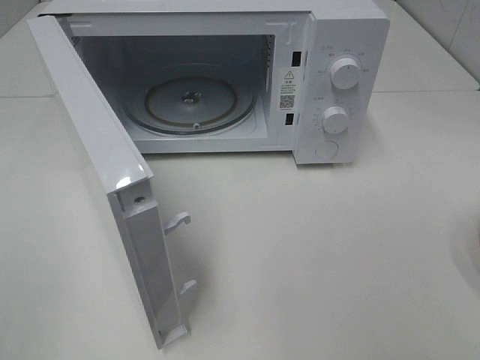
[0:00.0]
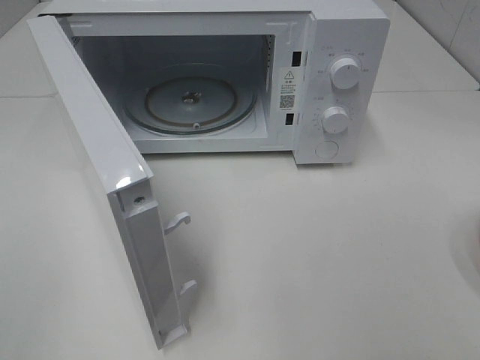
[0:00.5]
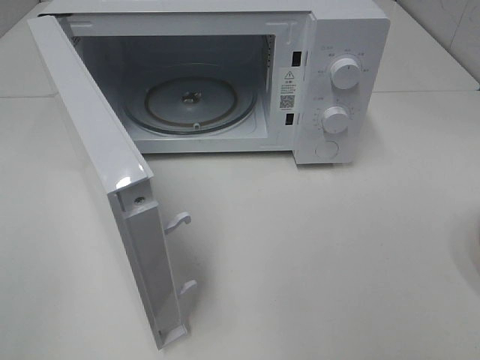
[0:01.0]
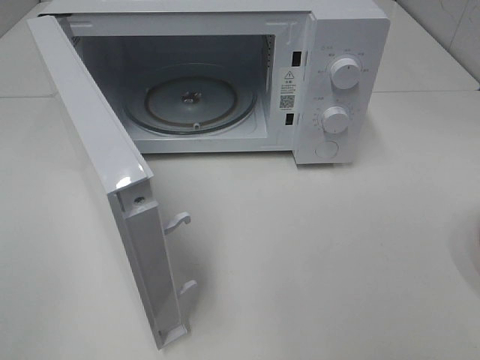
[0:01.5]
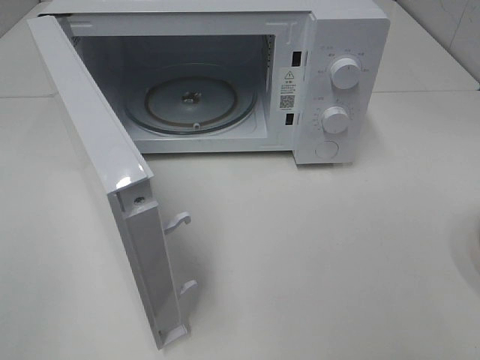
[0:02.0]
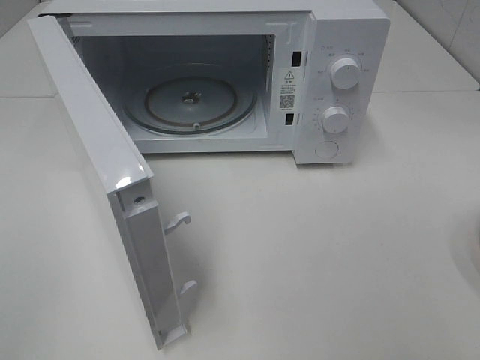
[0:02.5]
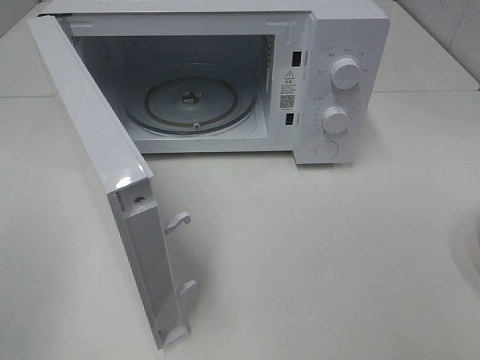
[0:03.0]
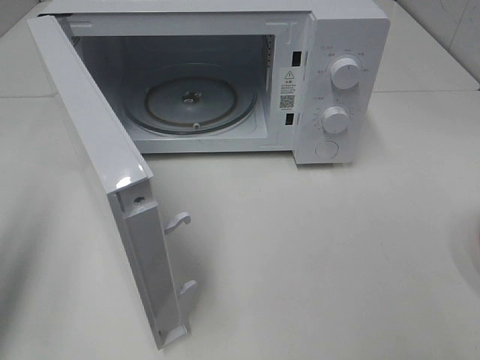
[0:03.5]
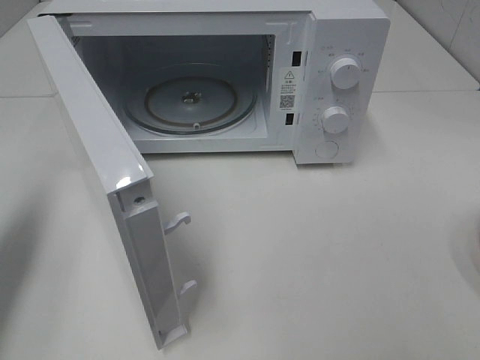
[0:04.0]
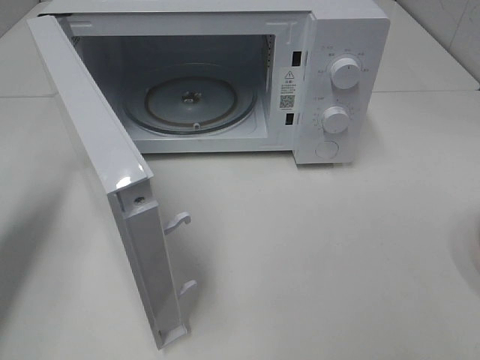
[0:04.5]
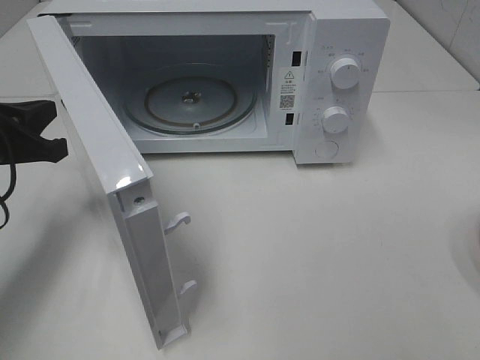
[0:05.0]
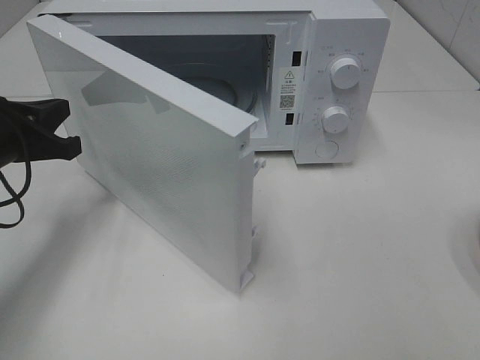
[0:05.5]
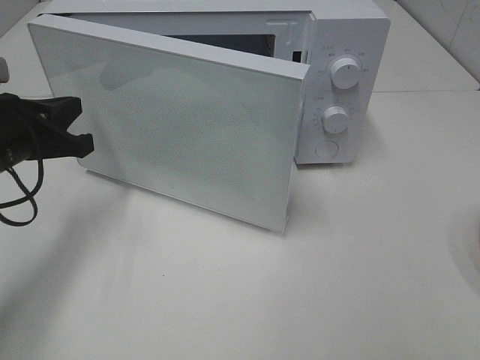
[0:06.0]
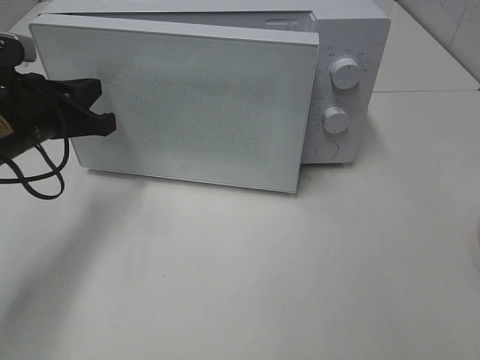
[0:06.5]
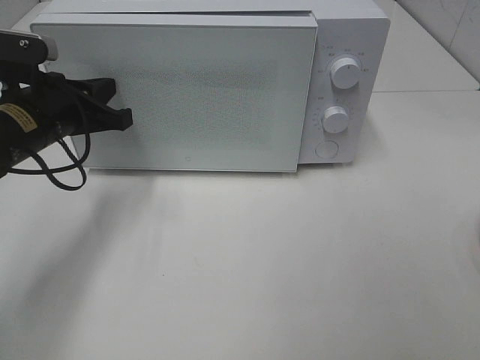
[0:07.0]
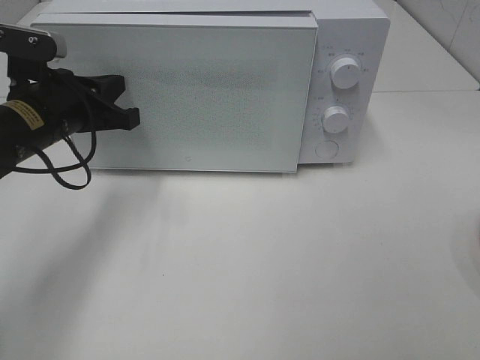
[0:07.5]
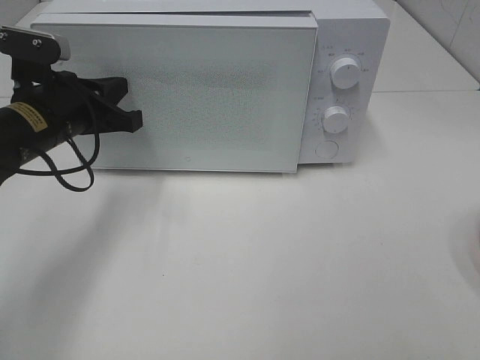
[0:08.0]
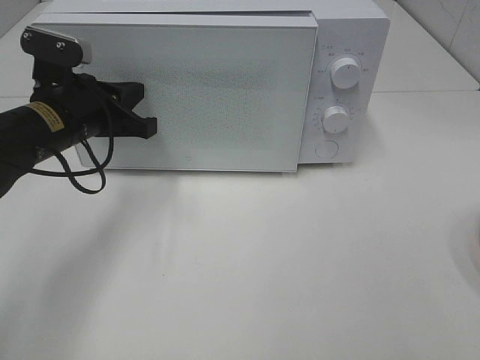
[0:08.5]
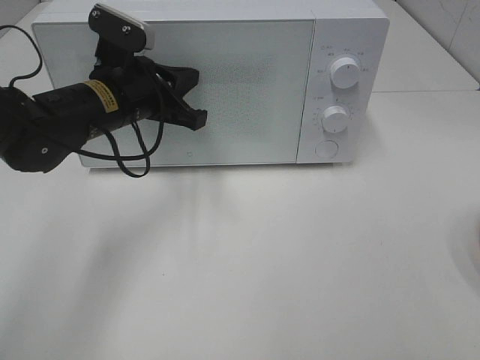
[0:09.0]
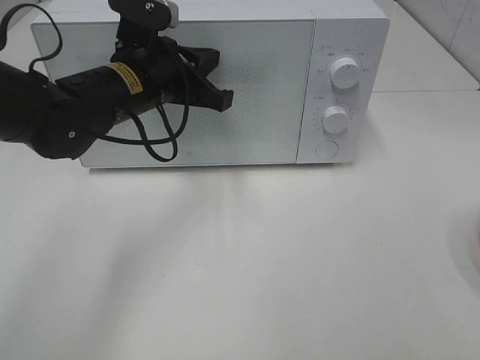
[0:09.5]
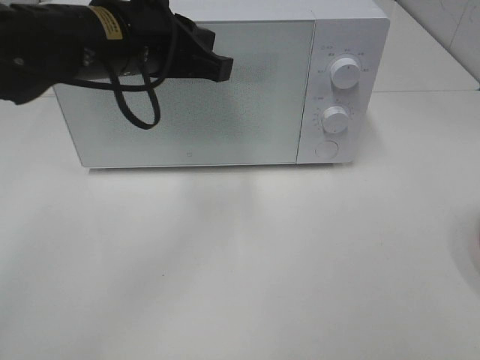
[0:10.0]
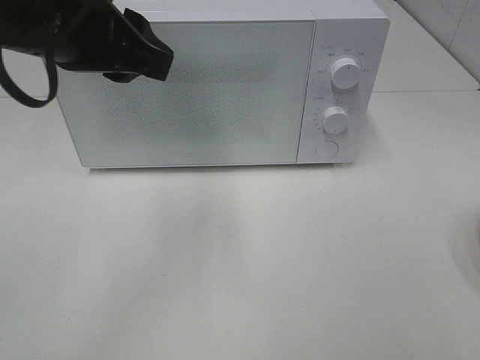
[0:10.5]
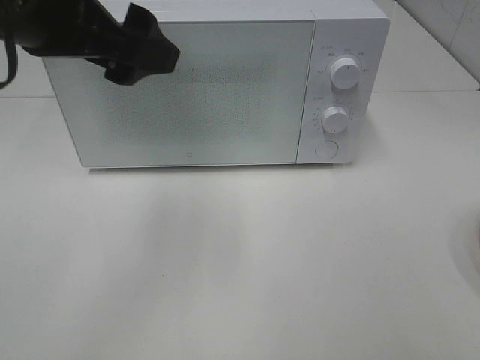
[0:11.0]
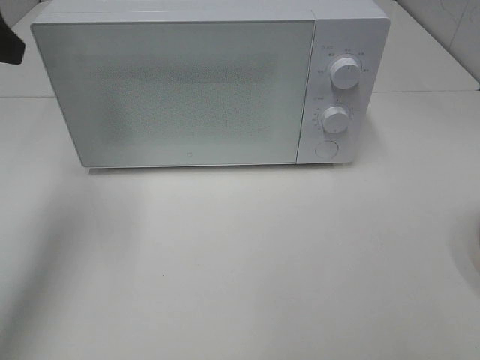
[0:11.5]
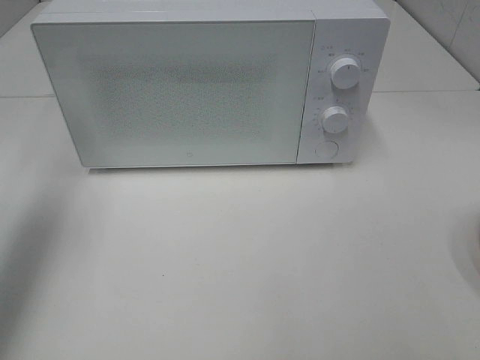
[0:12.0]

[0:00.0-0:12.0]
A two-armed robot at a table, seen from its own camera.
Task of the whole recording: Heat the burger.
Step, 0:00.0 to 0:09.0: Left hand: close the microwave door.
0:02.0 to 0:04.0: The left gripper goes some 20 cm forward, and closes.
0:04.0 to 0:06.0: The left gripper heads downward, to the right and forward, covering roughly 15 cm.
0:06.0 to 0:08.0: The left gripper ends up approximately 5 cm from where it was.
0:08.0 to 0:10.0: The left gripper goes some 15 cm to the right and upward.
0:10.0 to 0:12.0: The left gripper heads to the left, covering about 20 cm, and opens.

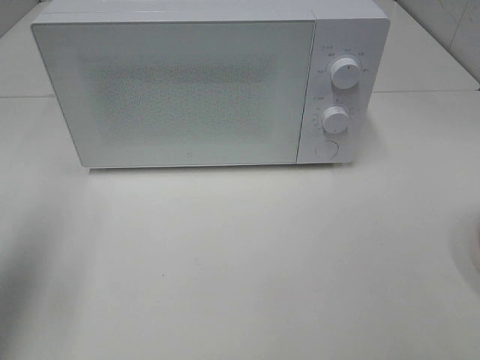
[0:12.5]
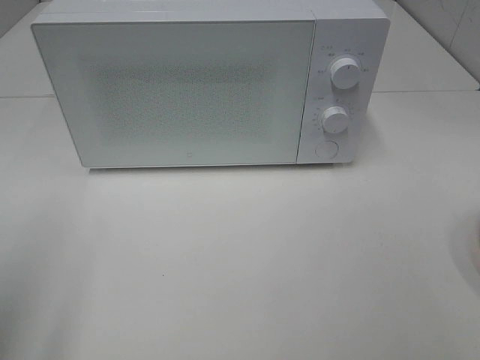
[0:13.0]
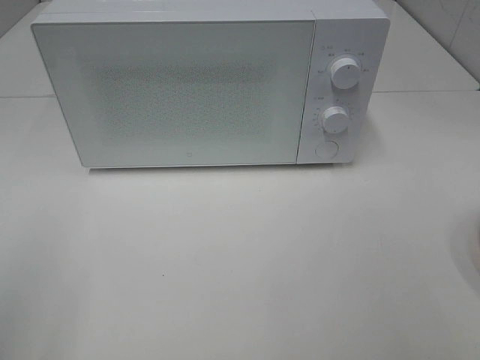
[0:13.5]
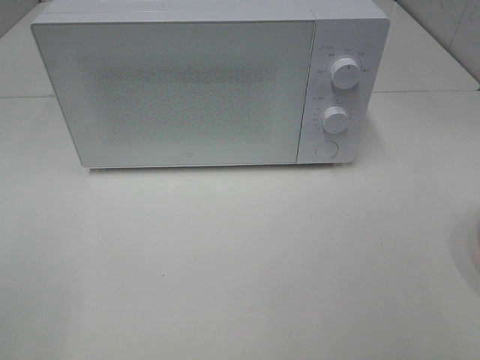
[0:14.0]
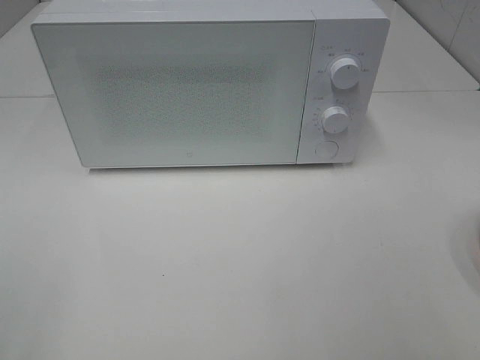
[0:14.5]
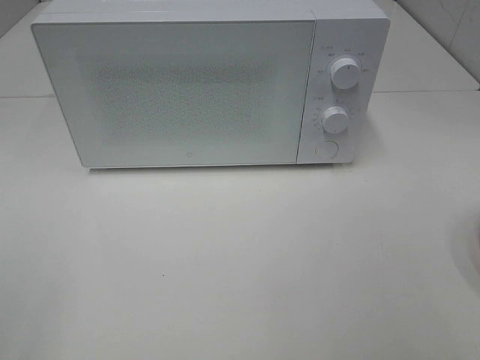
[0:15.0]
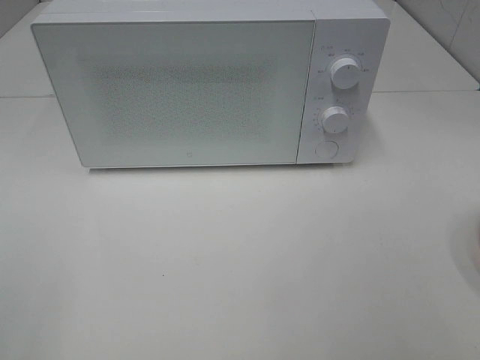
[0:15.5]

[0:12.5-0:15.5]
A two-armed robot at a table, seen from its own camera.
Task of the whole recording: Heat the burger.
0:12.5 to 0:14.0: The left gripper heads backward, covering roughly 20 cm.

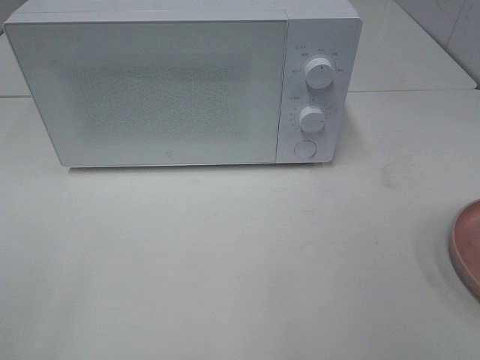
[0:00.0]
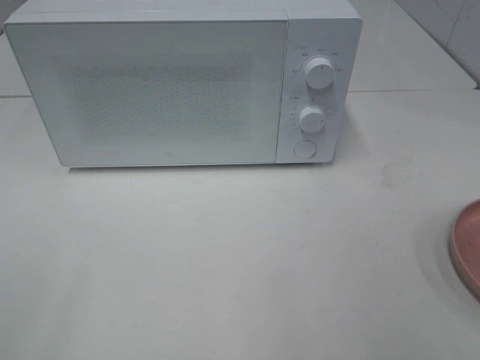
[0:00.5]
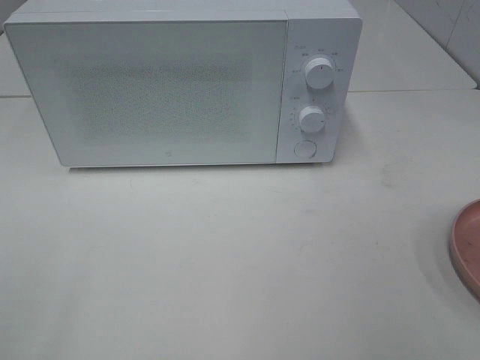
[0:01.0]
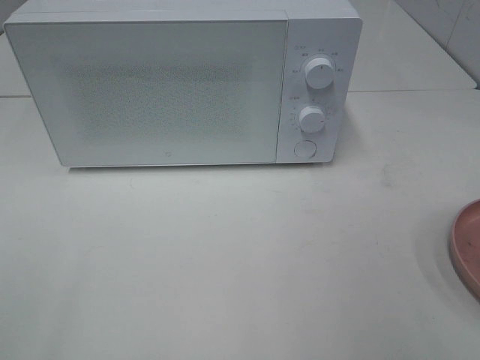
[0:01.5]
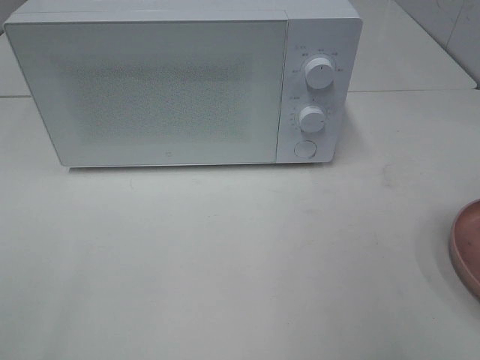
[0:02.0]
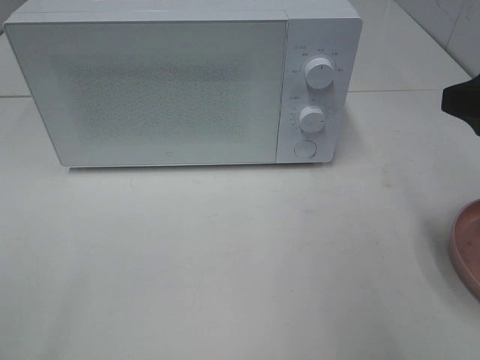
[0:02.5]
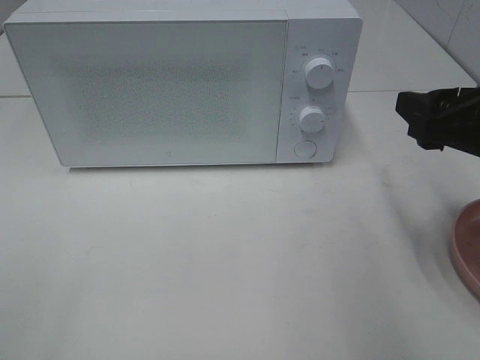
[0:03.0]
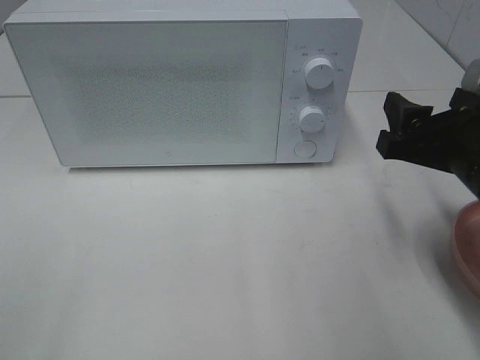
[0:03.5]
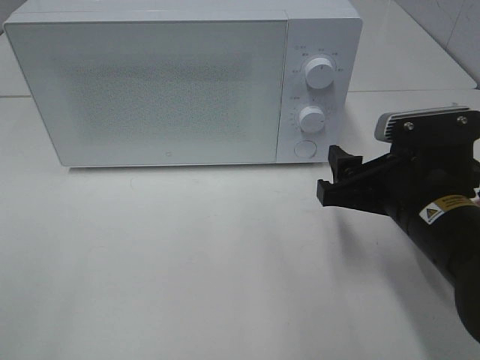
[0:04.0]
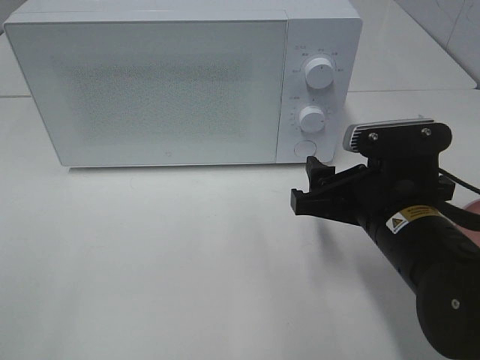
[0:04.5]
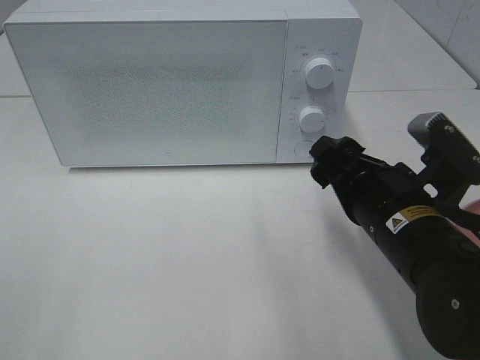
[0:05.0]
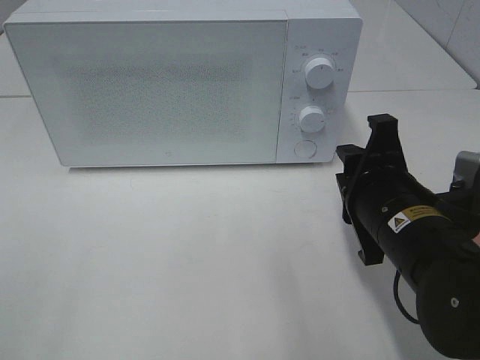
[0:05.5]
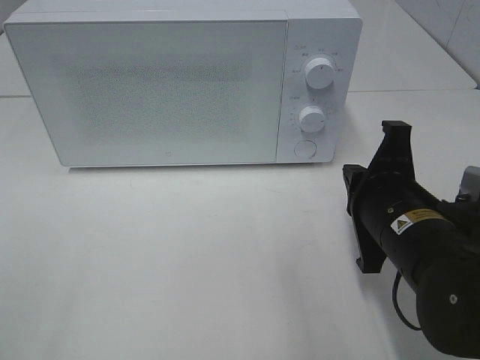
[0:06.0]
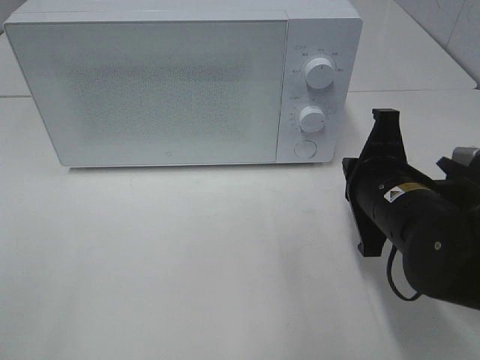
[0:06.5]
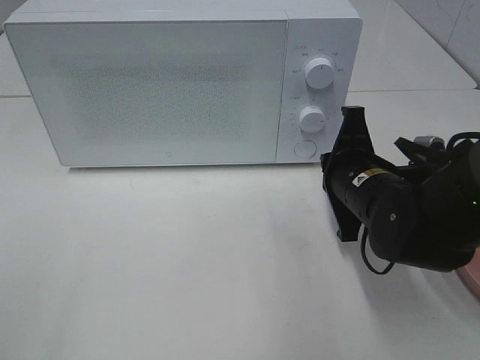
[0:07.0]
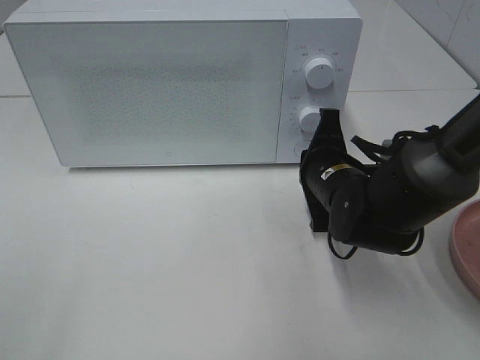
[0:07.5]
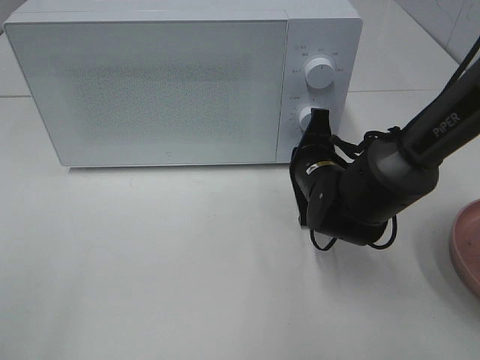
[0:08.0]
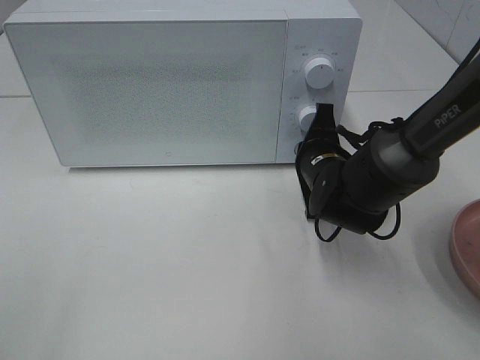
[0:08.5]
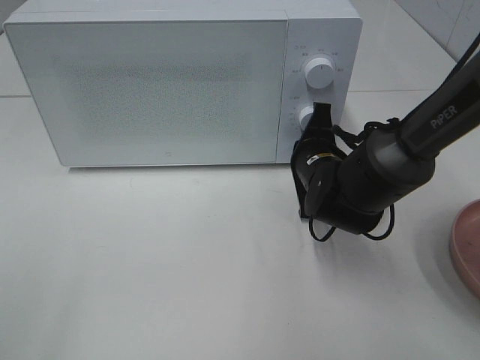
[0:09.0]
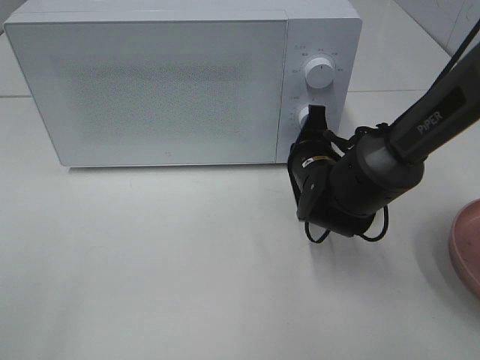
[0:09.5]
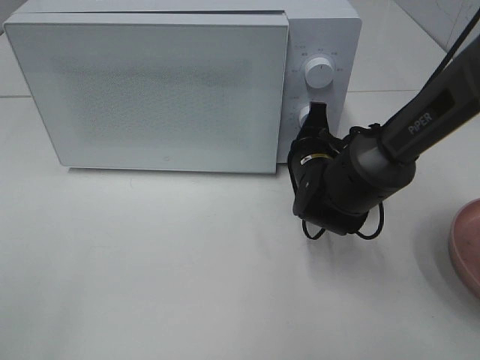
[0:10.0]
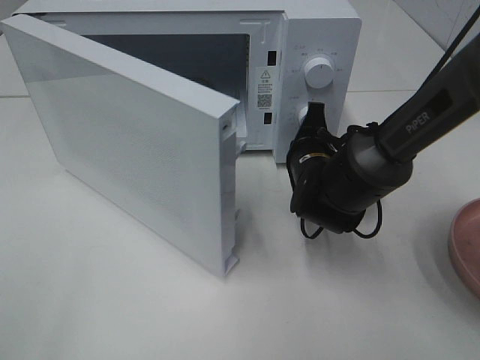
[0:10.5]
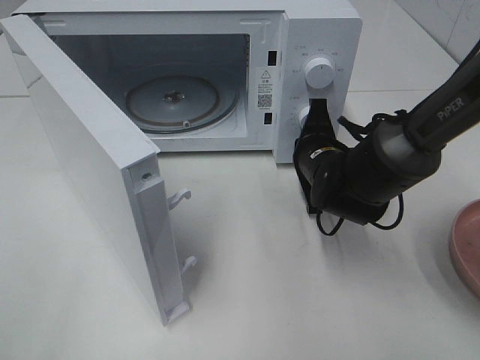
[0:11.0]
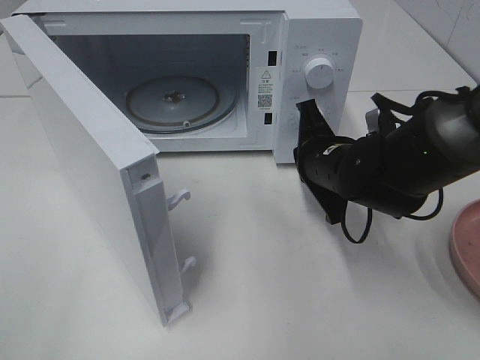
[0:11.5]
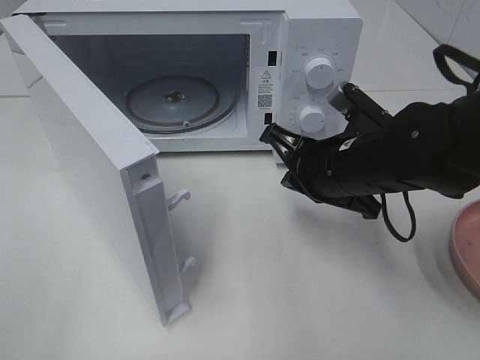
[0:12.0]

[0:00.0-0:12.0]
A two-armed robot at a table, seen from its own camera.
Task of the whole recording: Heat the burger.
Step, 0:00.0 to 0:11.5: Right hand: press the switch.
0:02.0 to 0:04.0: The right gripper is displaced downward, to the left and forward by some 20 cm.
0:04.0 to 0:06.0: The right gripper closes.
0:06.0 to 0:08.0: The right gripper moves forward and downward, about 15 cm.
0:08.0 to 0:10.0: The grippers make only small movements.
0:10.0 to 0:12.0: The right gripper heads backward and upward, covering about 10 cm.
